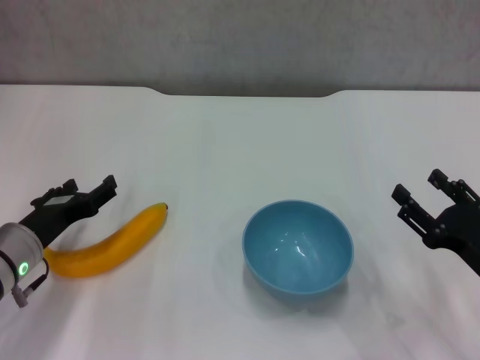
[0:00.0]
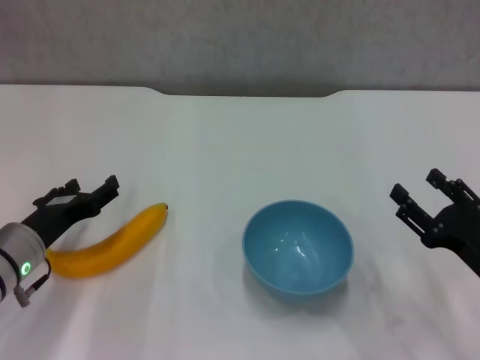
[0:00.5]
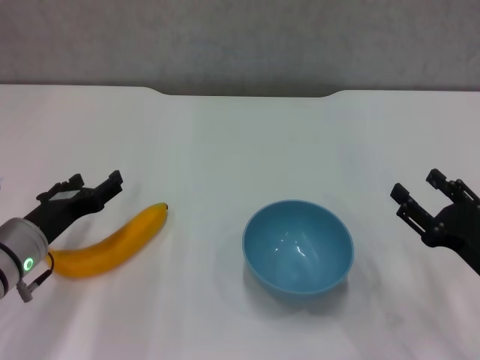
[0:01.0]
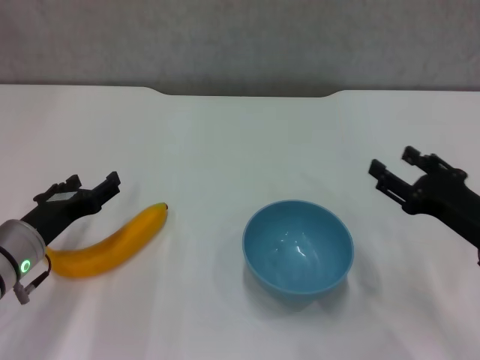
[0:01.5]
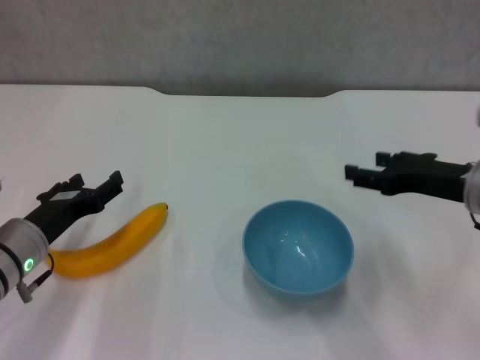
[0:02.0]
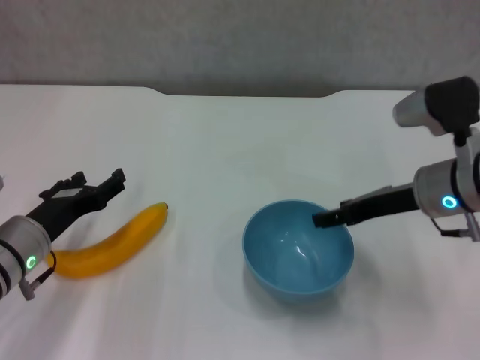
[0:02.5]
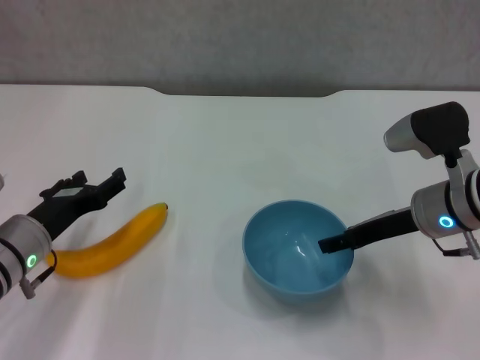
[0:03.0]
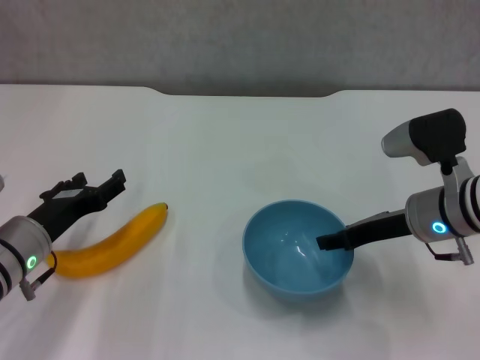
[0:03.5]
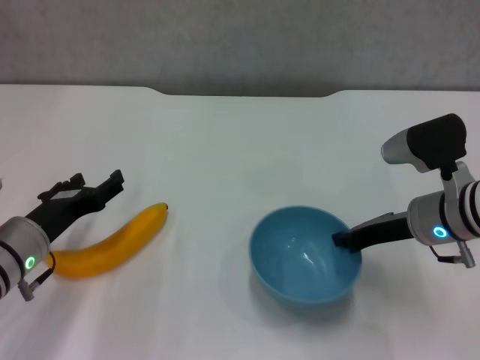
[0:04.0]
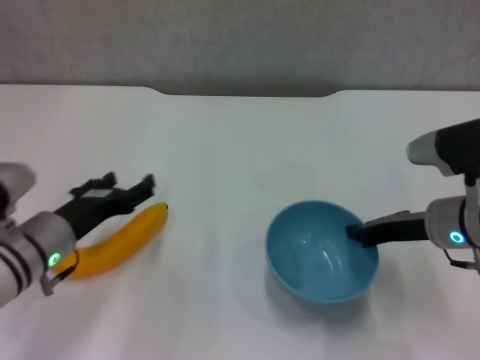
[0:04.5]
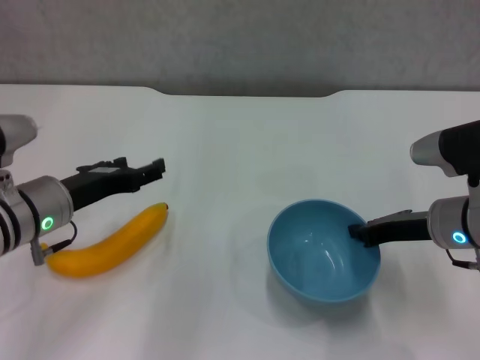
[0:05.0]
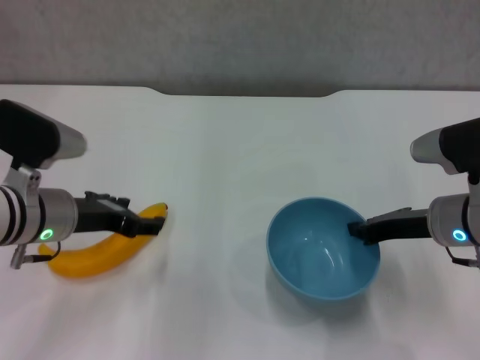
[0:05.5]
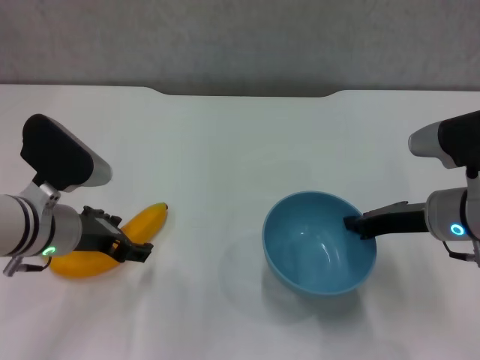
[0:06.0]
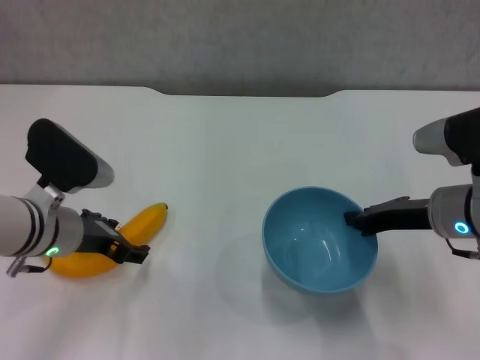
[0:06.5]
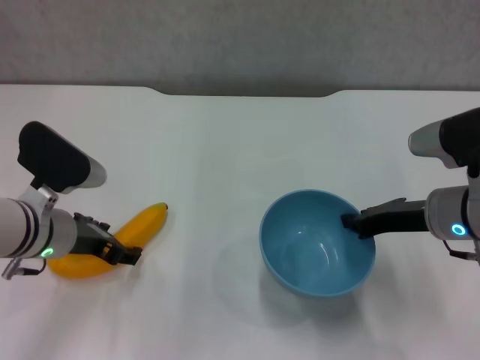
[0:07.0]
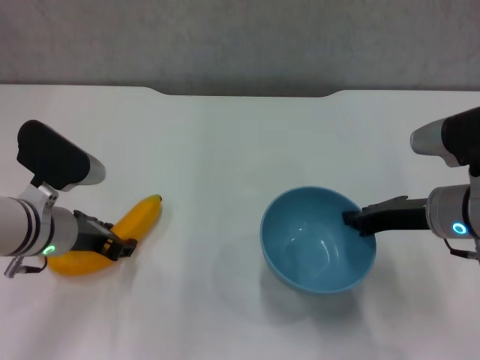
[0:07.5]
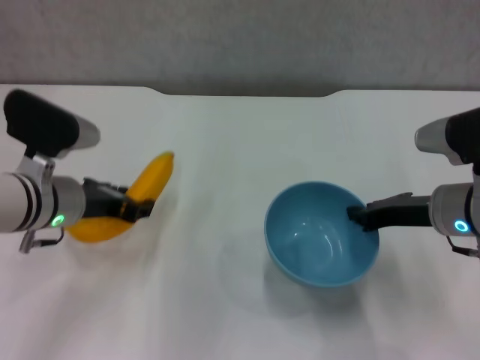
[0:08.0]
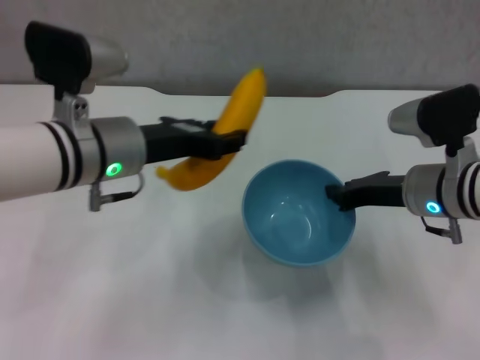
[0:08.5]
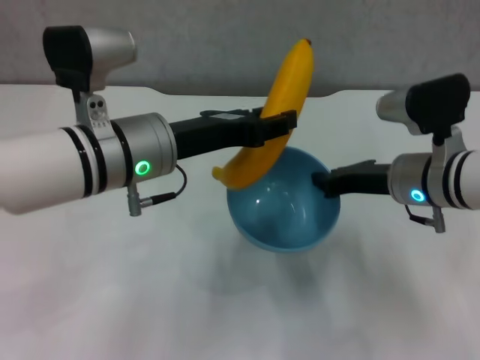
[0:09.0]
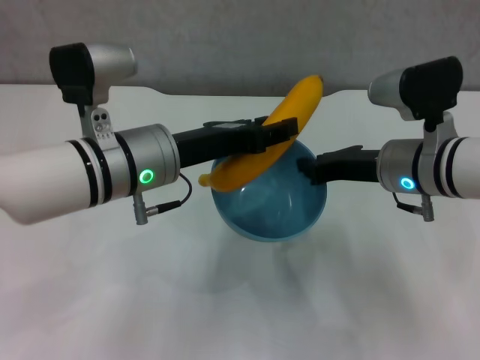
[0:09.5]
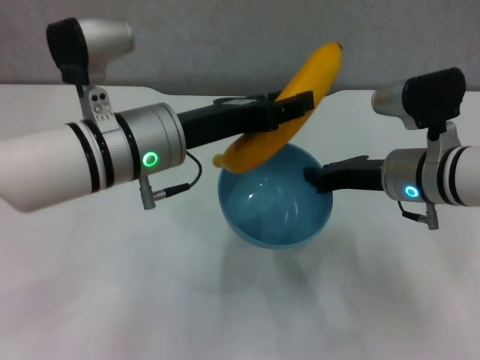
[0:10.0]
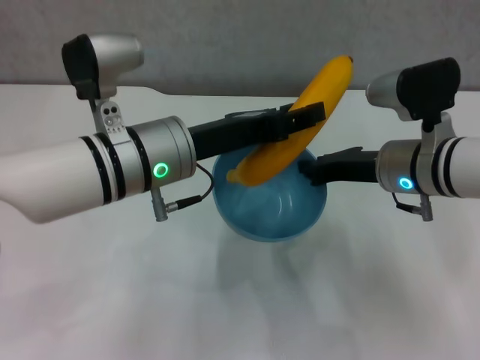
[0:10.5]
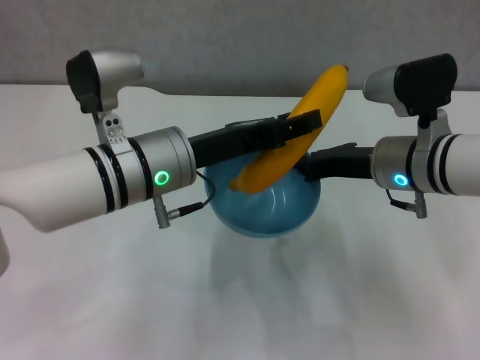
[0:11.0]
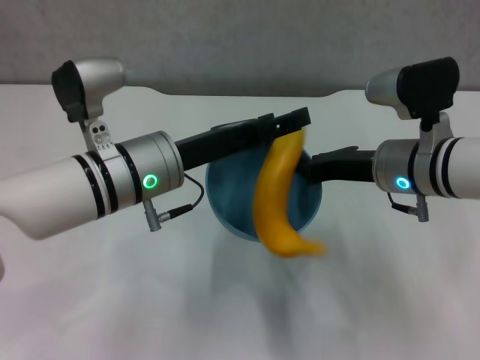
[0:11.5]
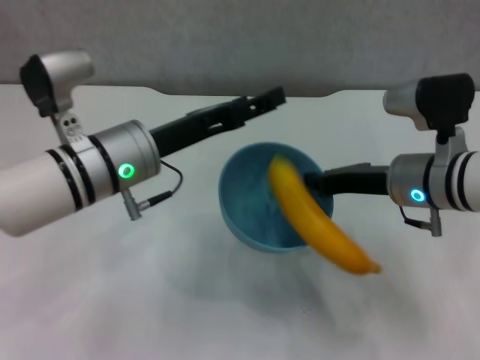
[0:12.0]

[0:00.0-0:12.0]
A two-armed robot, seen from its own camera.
Step, 0:00.0 to 0:04.0: Grasp the blue bowl with right gripper.
Step, 0:06.5 to 0:07.0: Grasp the banana with left gripper.
Step, 0:07.5 to 0:11.0: Place the banana in the blue bowl with left gripper.
0:00.0 to 0:02.0: The right gripper moves forward and upward, approximately 15 cm.
0:02.0 to 0:04.0: The right gripper shifts by roughly 5 cm, and closes its fingers.
0:04.0 to 0:06.0: The left gripper ends up roughly 5 cm from where it was.
0:06.0 to 0:08.0: The left gripper closes its fingers.
0:08.0 to 0:10.0: The left gripper heads to the right and upward, covering some 15 cm, while the right gripper is displaced to the left by about 5 cm.
0:10.0 to 0:12.0: The left gripper opens up.

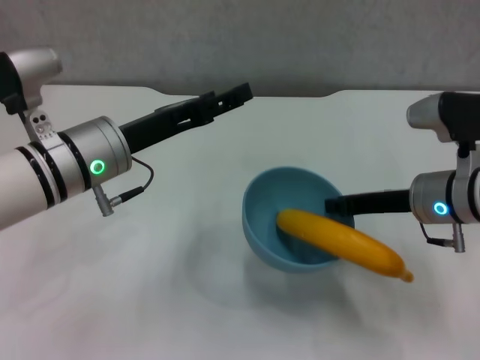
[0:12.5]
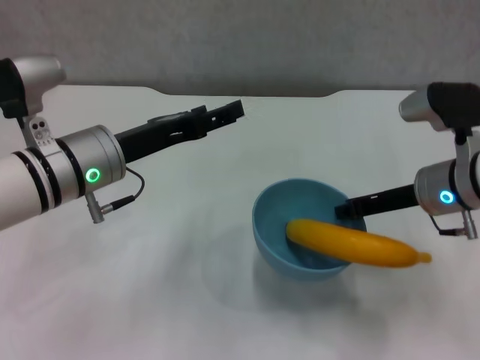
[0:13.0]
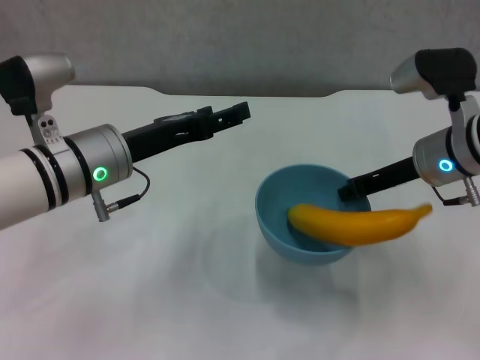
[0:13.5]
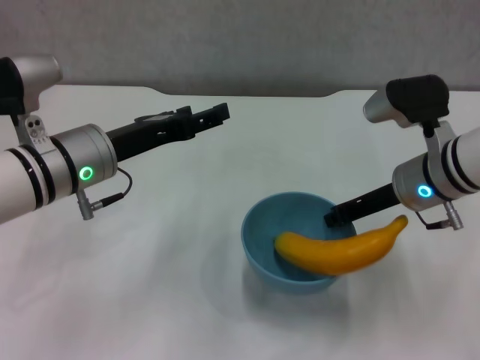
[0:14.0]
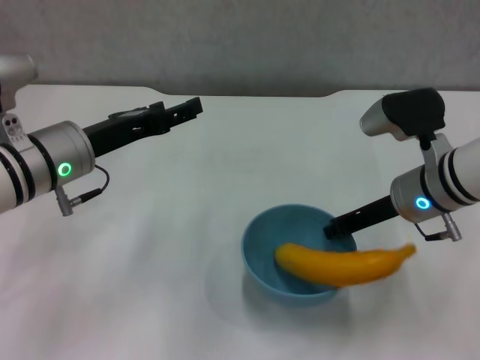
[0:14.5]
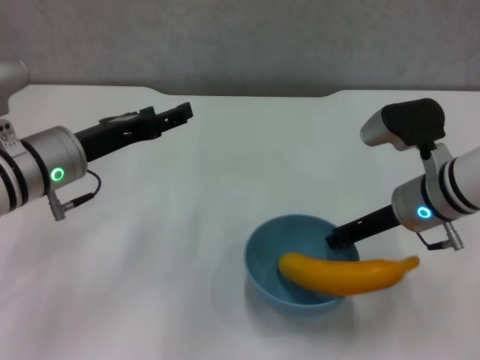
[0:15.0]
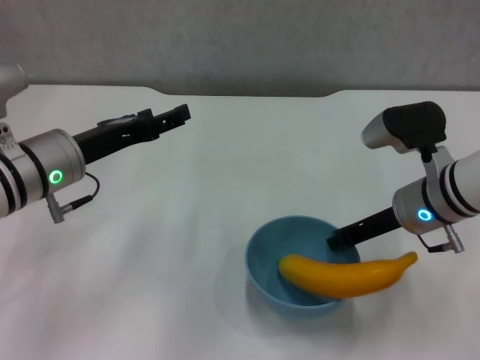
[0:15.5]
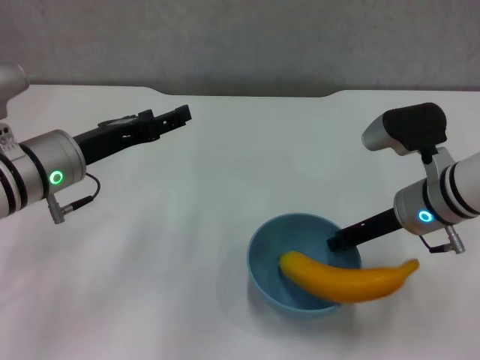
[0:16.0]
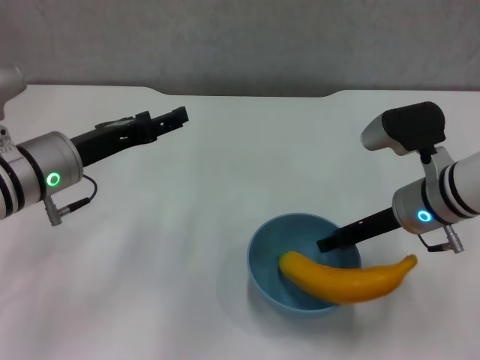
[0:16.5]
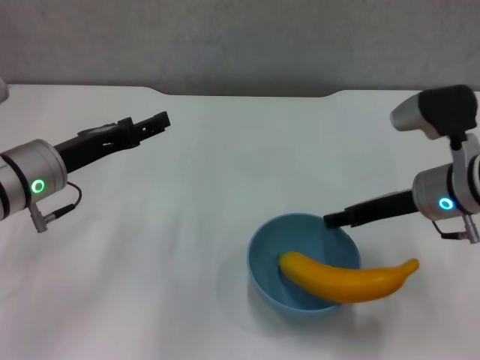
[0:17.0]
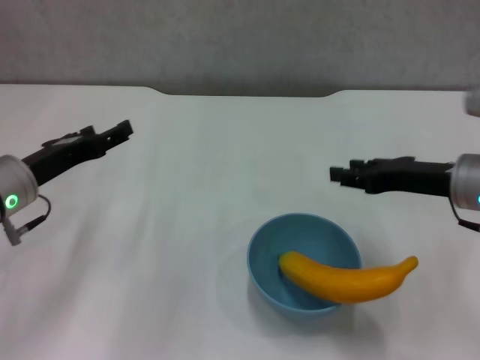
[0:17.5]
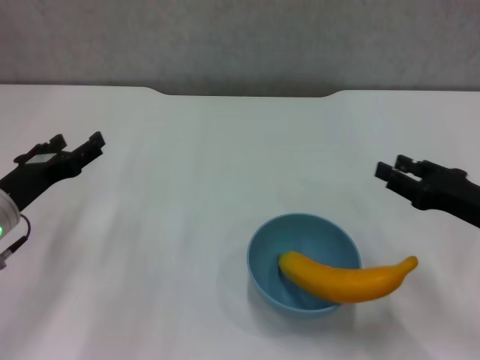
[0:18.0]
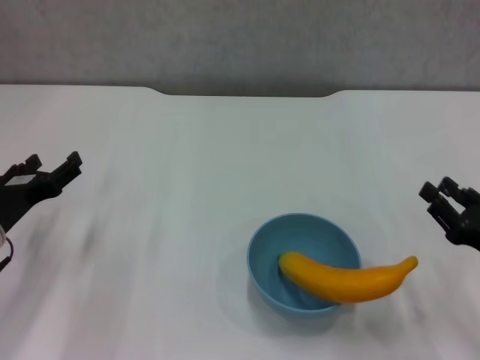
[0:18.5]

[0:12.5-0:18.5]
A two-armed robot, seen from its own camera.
Step, 0:12.5 to 0:16.5: Place the bowl on the table with right gripper.
0:14.5 to 0:16.5: The right gripper opens its fingers.
0:16.5 to 0:18.5: The right gripper shifts some 20 cm backward and to the right. The left gripper is displaced downward and to the left by some 10 cm.

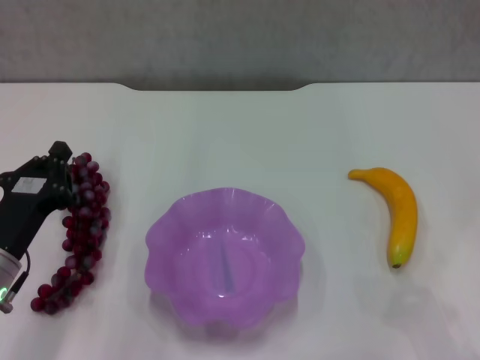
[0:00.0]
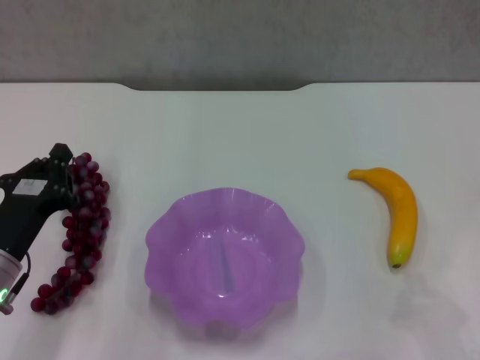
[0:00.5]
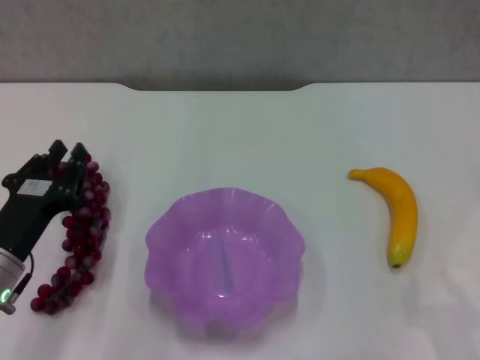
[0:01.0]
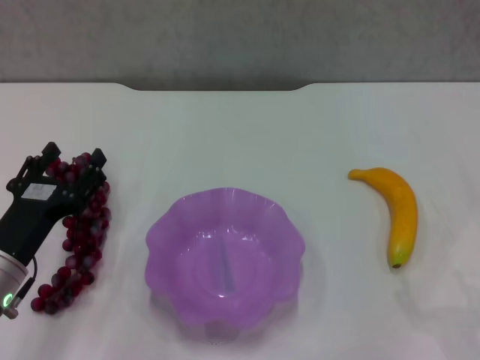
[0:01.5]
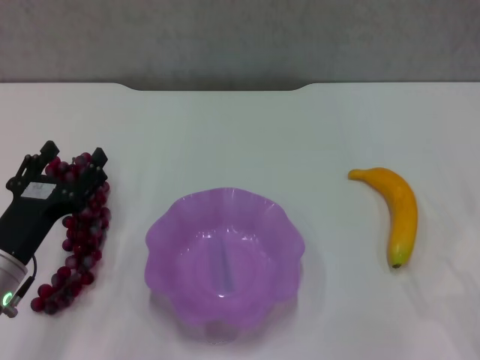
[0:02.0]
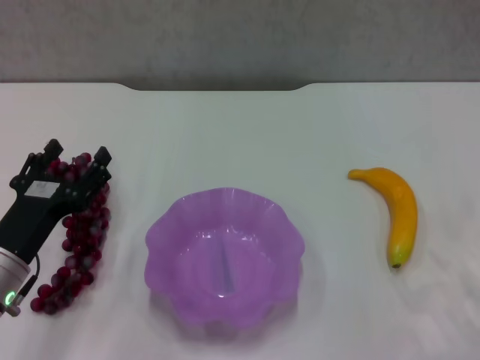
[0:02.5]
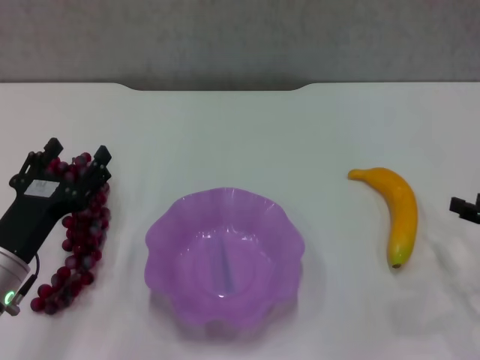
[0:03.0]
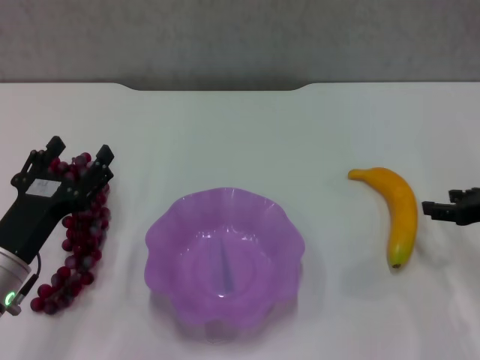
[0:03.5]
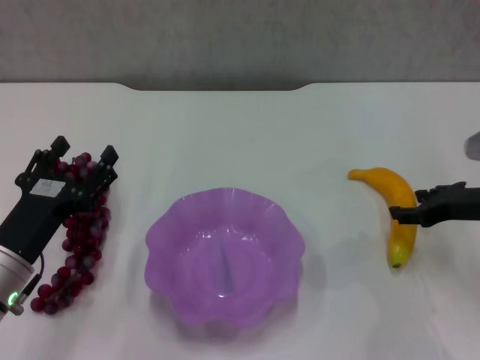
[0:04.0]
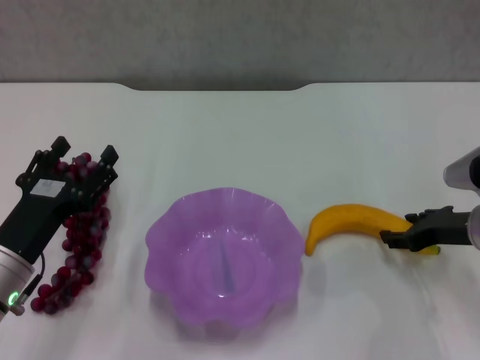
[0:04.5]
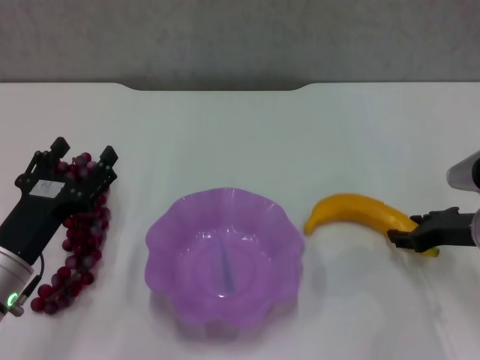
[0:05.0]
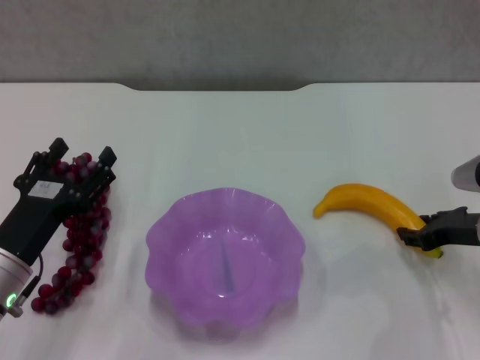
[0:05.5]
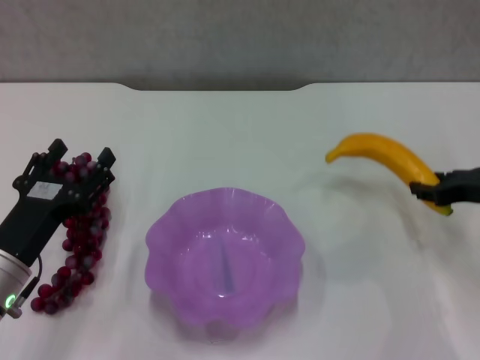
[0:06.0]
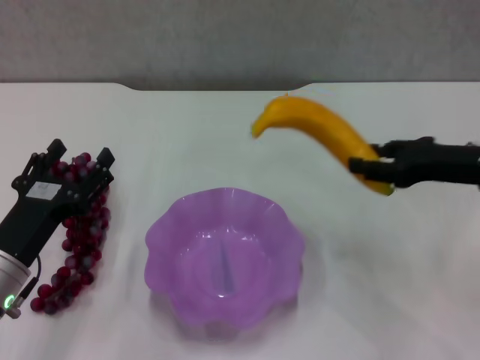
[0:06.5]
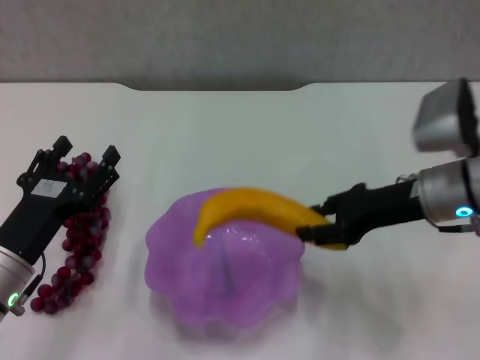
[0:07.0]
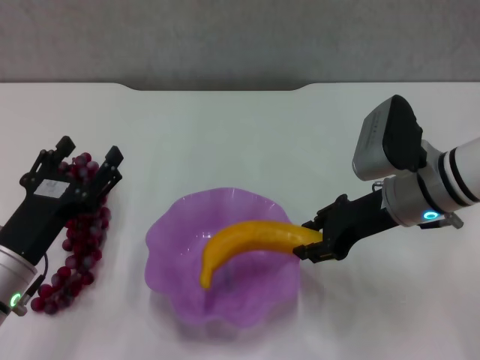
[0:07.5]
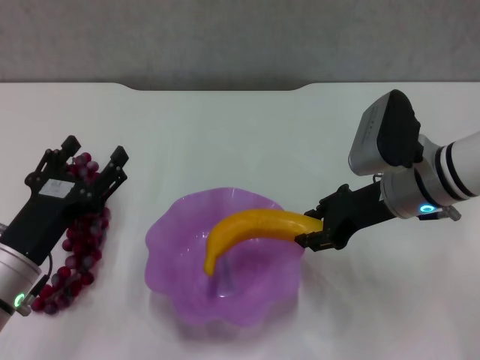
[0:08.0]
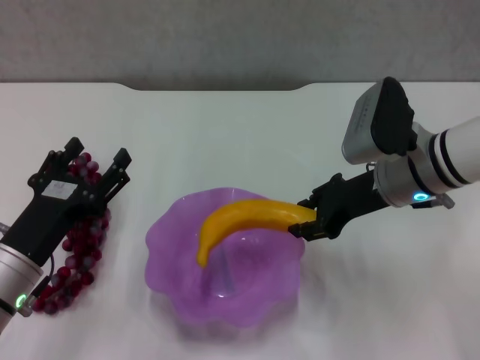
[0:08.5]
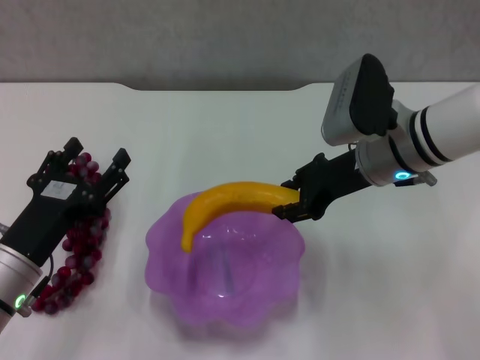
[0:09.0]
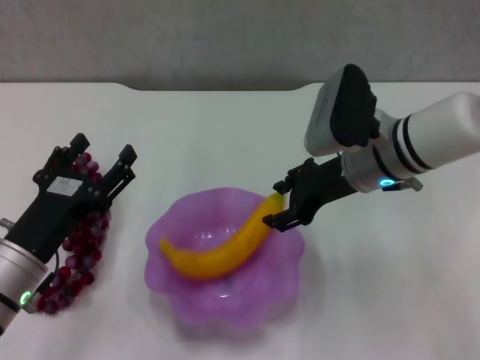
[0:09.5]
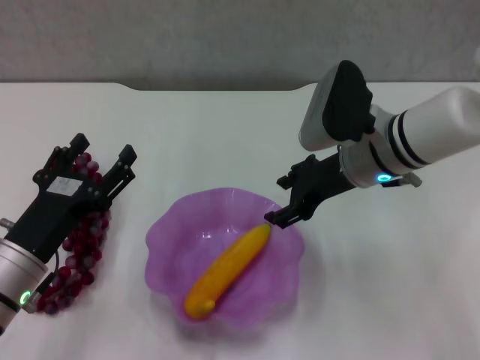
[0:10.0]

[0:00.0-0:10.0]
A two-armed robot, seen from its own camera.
Step, 0:00.0 to 0:05.0: Grasp the banana with right gripper.
Step, 0:05.5 to 0:09.5: Place the banana in the purple plate with right gripper.
0:00.0 to 0:02.0: The left gripper opens its fingers.
0:02.0 to 0:04.0: The right gripper moves forward and to the left, about 20 cm.
0:04.0 to 0:06.0: The grippers move only a little.
0:06.0 to 0:08.0: The right gripper travels to the left by roughly 15 cm.
0:08.0 to 0:10.0: The right gripper moves about 5 cm, and opens.
